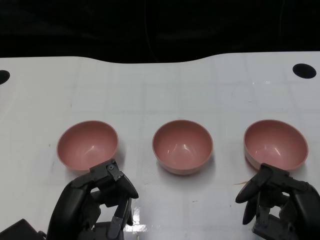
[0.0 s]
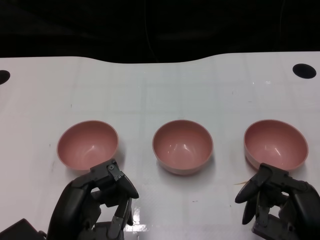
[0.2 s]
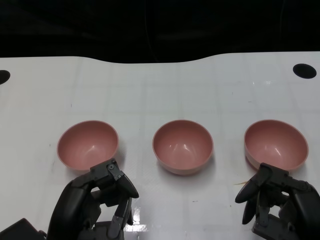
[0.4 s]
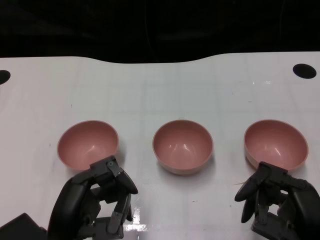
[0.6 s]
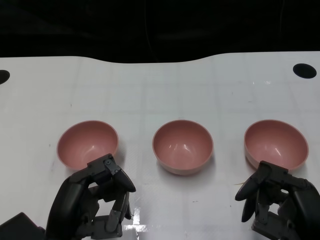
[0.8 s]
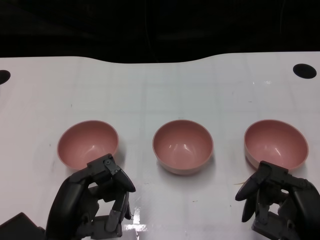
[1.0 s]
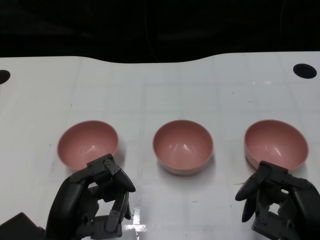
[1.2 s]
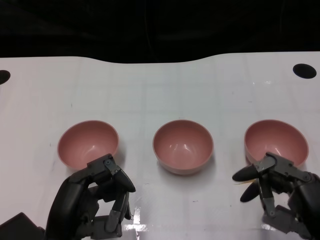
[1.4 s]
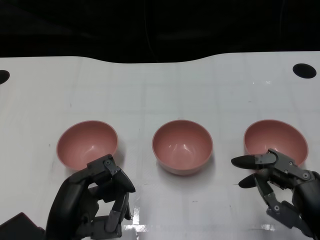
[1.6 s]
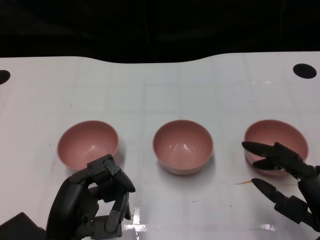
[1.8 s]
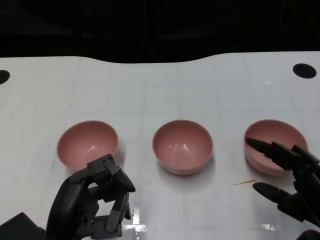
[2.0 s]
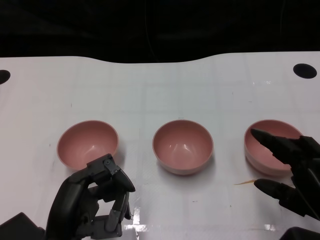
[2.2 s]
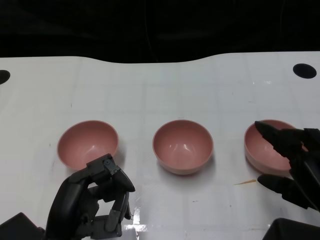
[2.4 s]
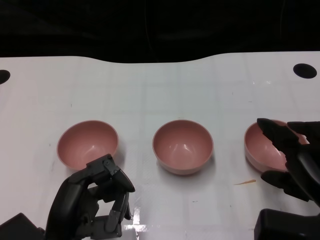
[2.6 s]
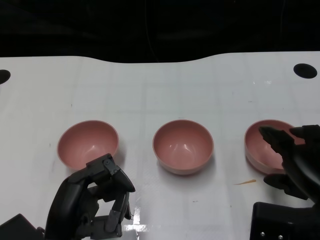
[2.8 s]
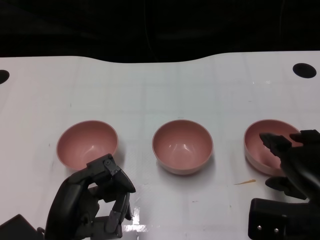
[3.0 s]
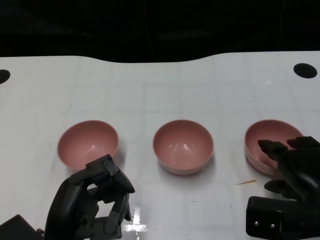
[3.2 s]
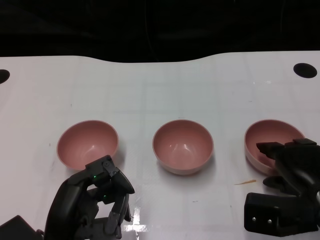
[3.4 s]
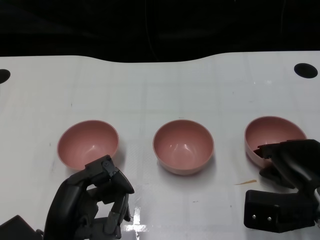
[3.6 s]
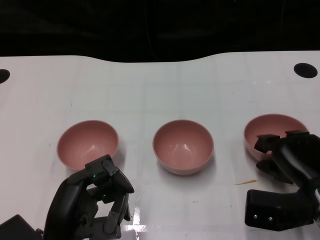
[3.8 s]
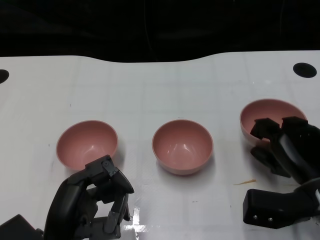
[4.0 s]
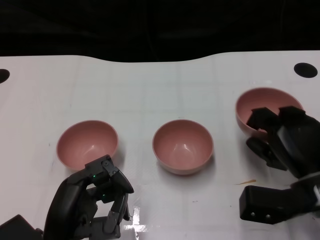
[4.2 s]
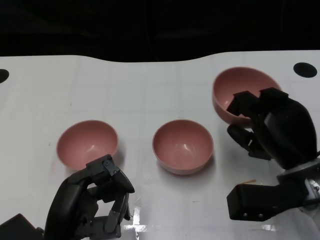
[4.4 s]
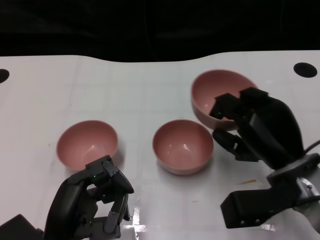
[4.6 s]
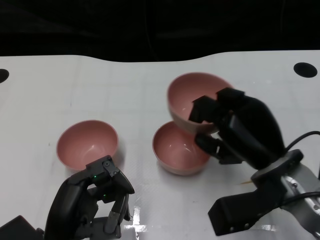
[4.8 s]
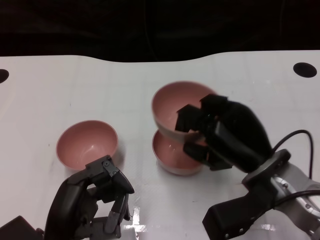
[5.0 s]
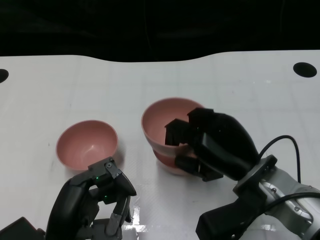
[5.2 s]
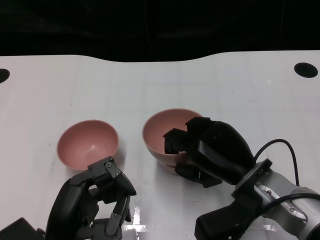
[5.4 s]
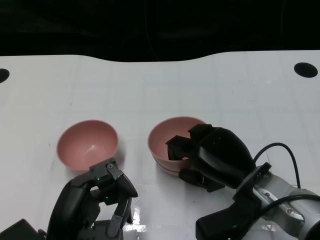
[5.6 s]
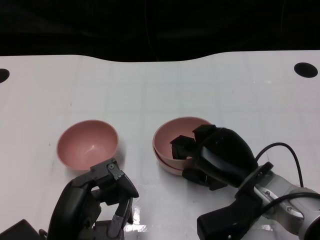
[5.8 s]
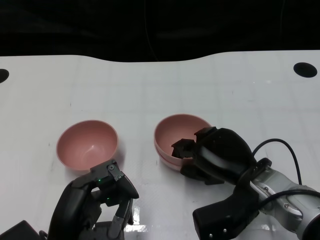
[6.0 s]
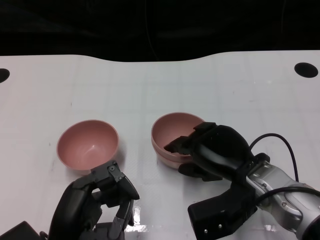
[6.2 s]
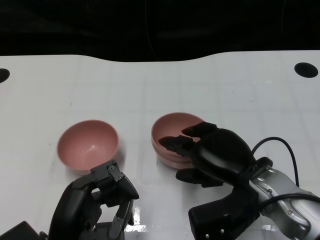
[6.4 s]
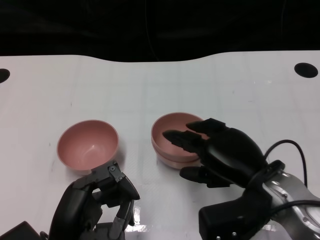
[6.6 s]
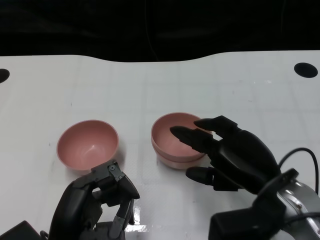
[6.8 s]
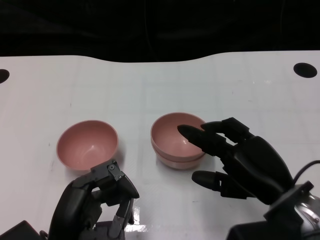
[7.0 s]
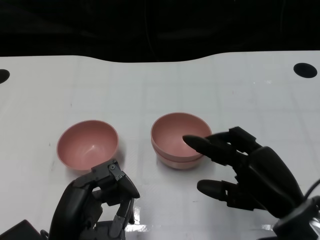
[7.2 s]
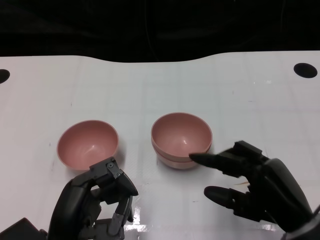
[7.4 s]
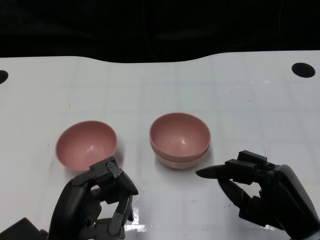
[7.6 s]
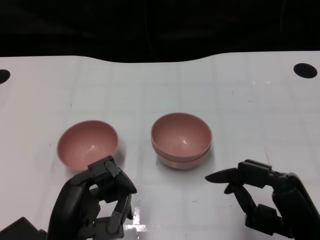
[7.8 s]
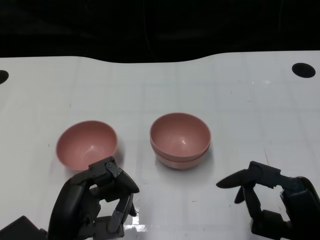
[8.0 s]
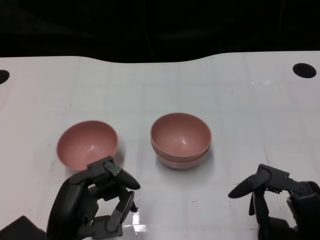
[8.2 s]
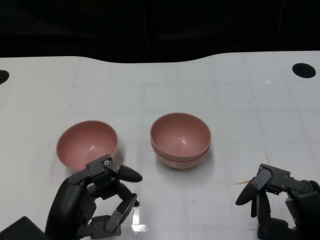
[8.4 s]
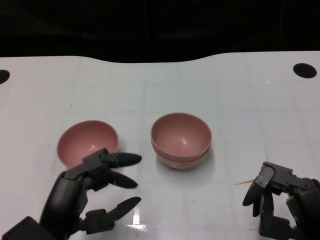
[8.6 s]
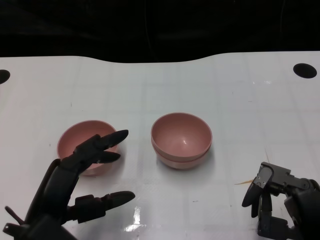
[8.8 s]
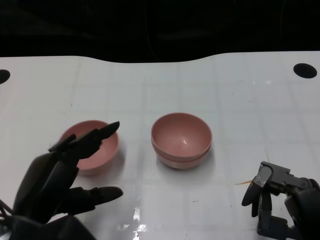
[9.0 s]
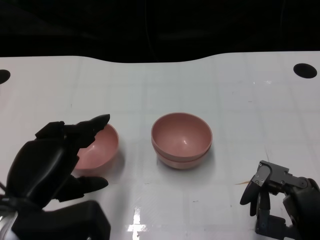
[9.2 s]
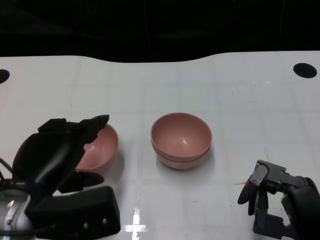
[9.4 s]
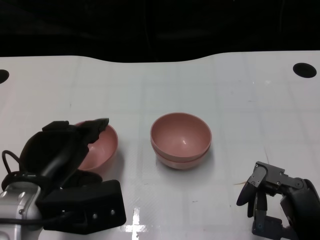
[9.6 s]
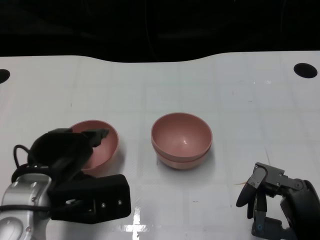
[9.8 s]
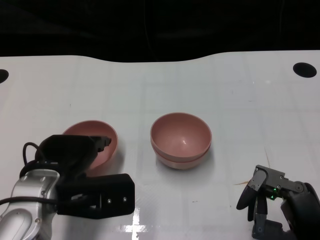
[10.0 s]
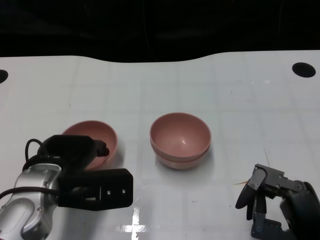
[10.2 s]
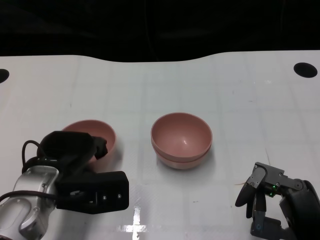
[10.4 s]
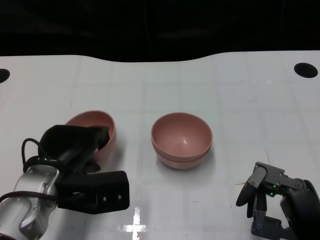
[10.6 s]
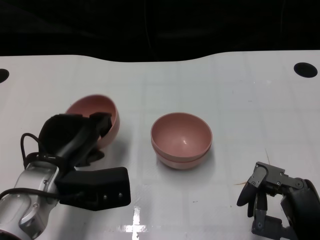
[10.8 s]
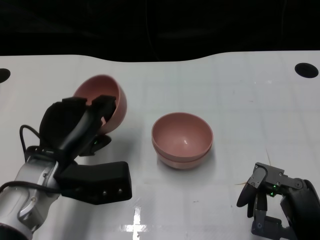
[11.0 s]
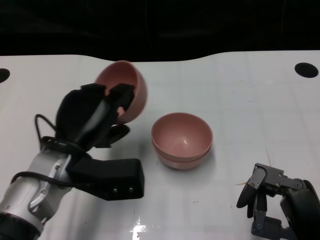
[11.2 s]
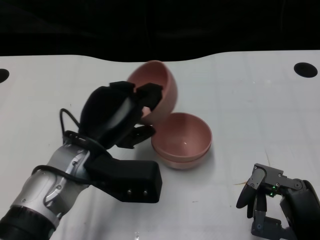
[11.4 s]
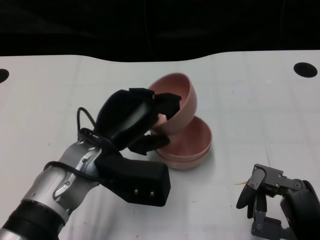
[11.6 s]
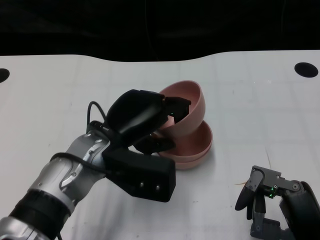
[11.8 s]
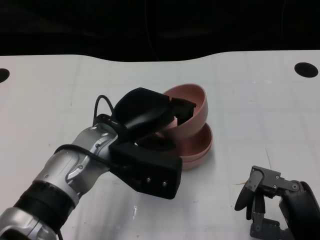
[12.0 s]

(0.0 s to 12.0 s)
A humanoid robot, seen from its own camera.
Task of the whole recording: Pick up the bowl on one side of the table and place it on top of the middle bowl, then pick up the bowl on the other side of the table and place it on top of the middle bowls.
Step, 1.4 s - 3.8 s: Grasp the bowl on the right with the right gripper.
Step, 4.0 s - 6.8 s: Place the bowl on the right onto the bowl in the middle with right gripper.
Step, 7.2 s - 10.6 s: Grasp the bowl on the left with the left gripper.
1.6 s - 3.0 s: The right hand travels forward by roughly 5 cm.
3.0 s - 4.4 s: The right hand changes place by about 5 cm.
4.4 s - 6.0 s: The right hand heads to the left, covering approximately 5 cm.
6.0 s - 7.6 s: The right hand goes some 10 cm backward and to the right.
7.6 s - 9.0 s: The left hand moves some 5 cm.
9.0 s - 10.4 s: The left hand travels forward by some 10 cm.
10.4 s - 12.0 s: The left hand moves to the right, some 10 cm.

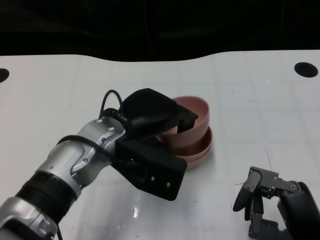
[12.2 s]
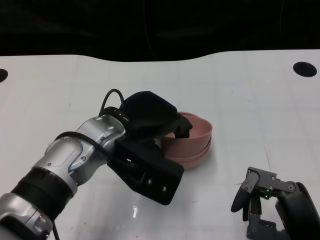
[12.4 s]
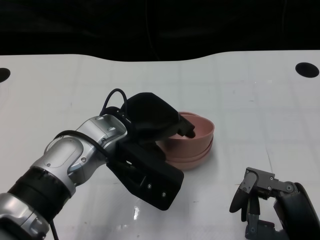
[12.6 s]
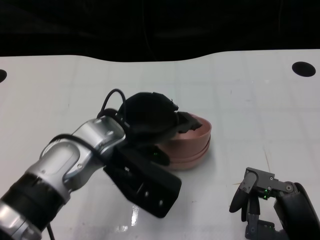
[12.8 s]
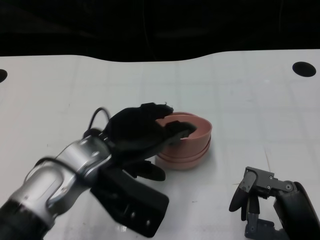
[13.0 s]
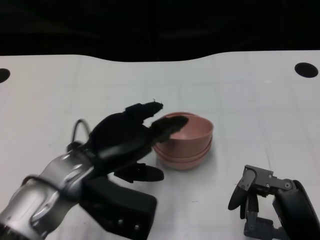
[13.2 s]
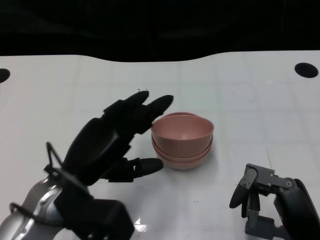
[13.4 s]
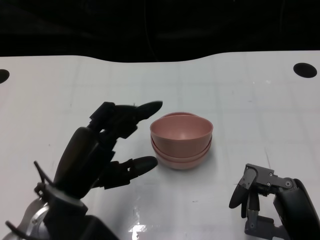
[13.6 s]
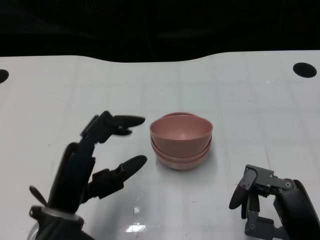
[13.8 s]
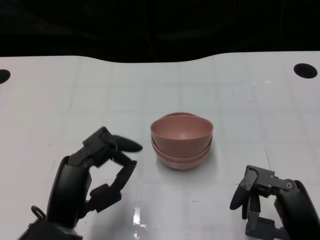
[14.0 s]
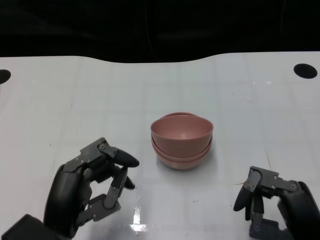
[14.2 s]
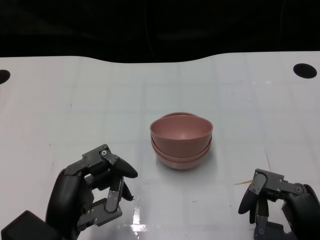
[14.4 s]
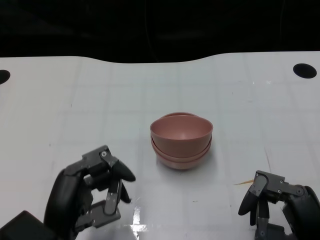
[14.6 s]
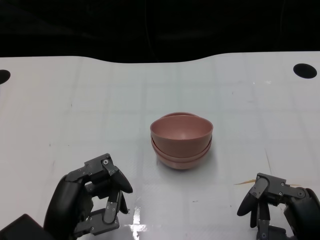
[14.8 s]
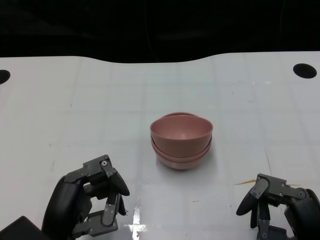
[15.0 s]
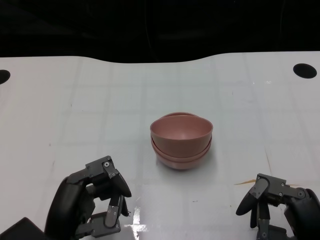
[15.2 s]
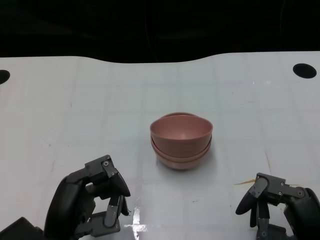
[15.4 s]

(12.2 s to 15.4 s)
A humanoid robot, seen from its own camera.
Task of the whole recording: Pick up the bowl on one side of the table and place it on top of the middle bowl, then pick up the bowl on the other side of the table and place it on top of the middle bowls.
12.2 s - 13.8 s: The left hand shifts approximately 15 cm backward, to the left and downward.

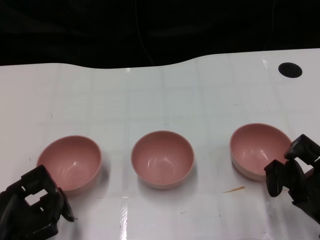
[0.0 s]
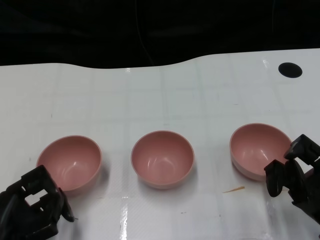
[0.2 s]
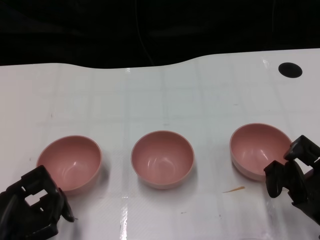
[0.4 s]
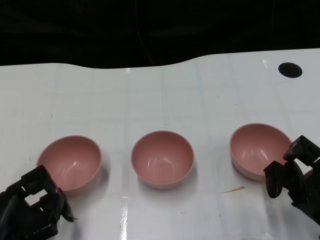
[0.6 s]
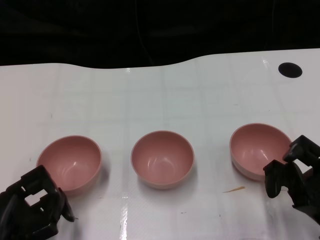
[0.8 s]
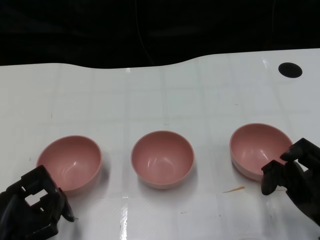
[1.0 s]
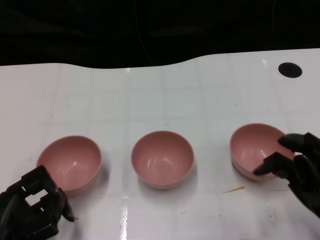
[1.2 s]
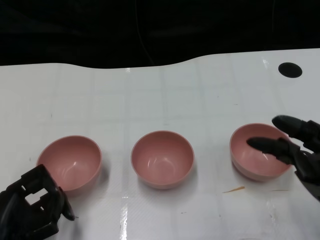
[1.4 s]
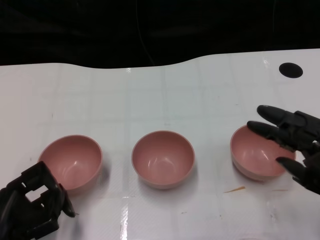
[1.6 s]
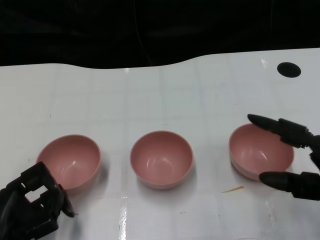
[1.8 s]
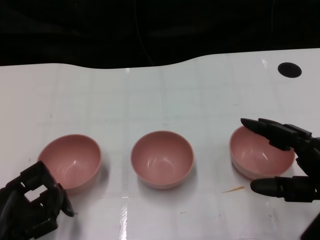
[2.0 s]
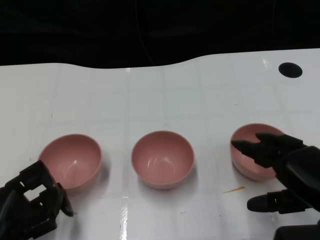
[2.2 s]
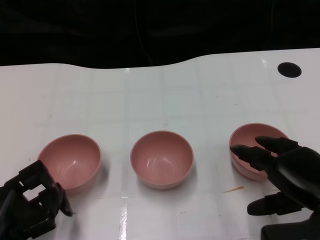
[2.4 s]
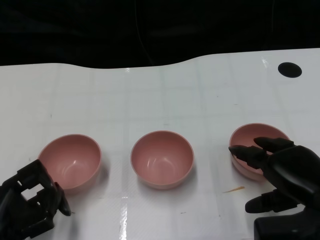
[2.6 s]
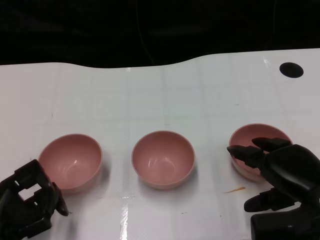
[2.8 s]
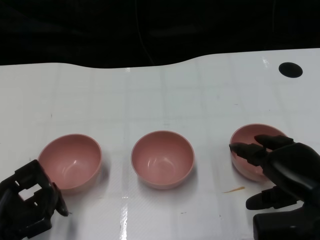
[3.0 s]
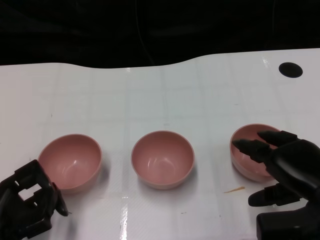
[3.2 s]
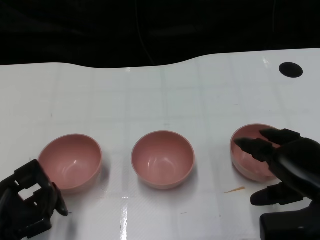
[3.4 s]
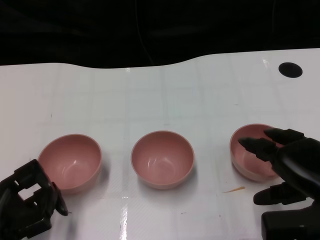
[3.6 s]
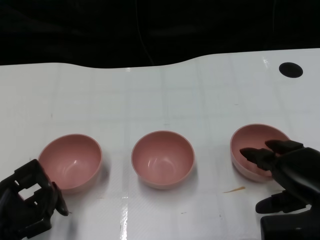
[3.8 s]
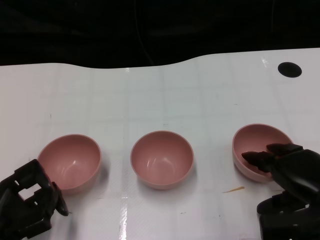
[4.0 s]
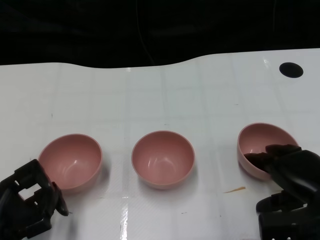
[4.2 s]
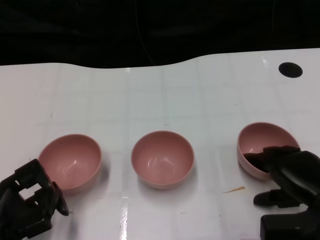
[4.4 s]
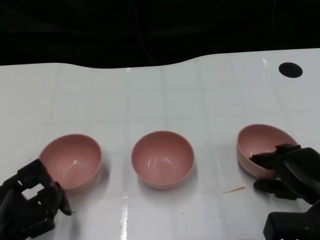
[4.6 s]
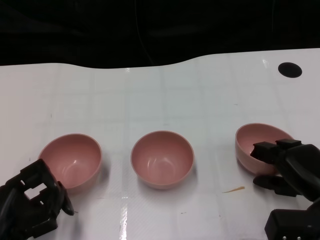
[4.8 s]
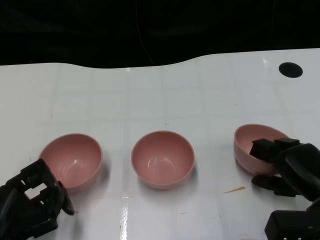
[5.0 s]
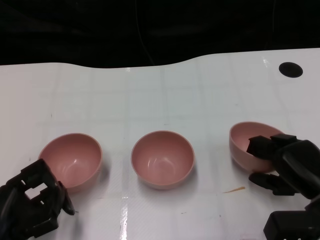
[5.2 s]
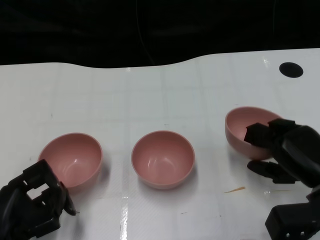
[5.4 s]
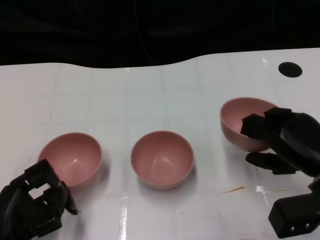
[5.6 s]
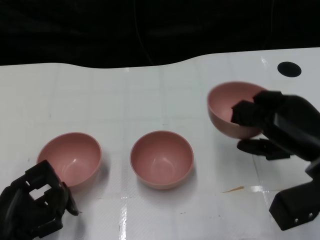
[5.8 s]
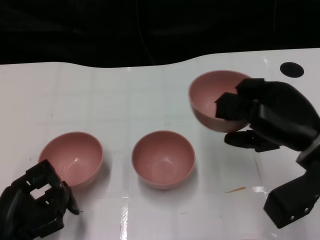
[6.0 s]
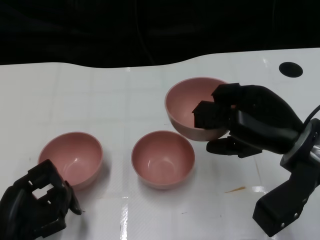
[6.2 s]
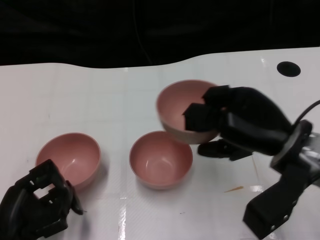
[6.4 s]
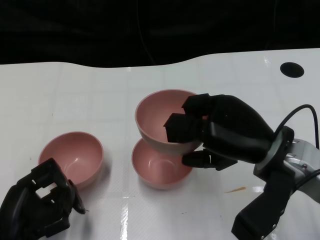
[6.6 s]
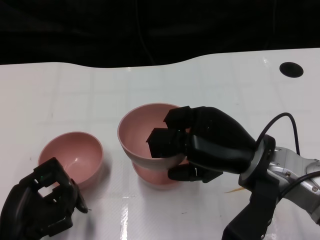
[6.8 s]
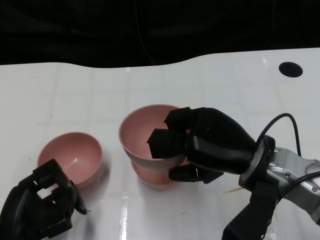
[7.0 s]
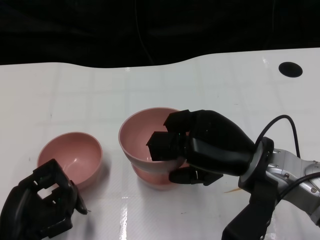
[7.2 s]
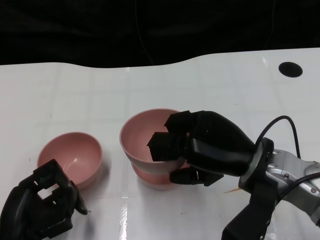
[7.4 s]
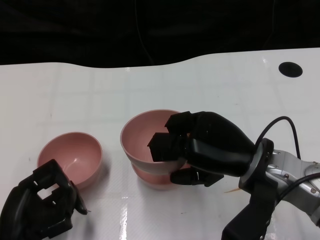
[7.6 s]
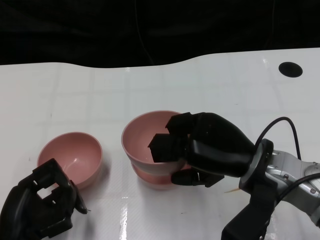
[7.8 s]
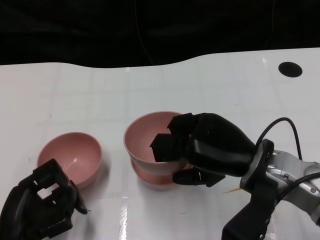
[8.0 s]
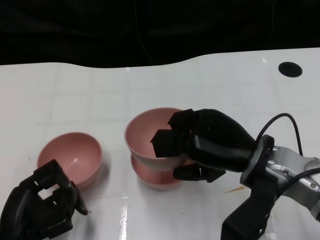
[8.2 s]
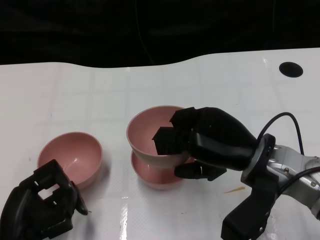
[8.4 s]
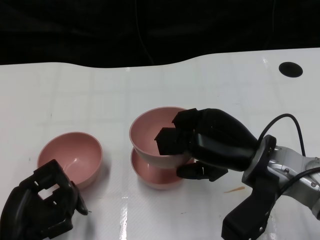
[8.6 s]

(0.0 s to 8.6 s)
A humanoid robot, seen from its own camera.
Task of the whole recording: Pick up the bowl on one side of the table and place it on top of the middle bowl, then pick up the bowl on the other side of the table and place it on top of the middle bowls.
Step, 1.0 s - 5.2 s: Grasp the bowl on the right with the right gripper.
2.8 s - 4.4 s: The hands make only small movements.
4.4 s - 5.8 s: The right hand is displaced upward by approximately 5 cm.
5.8 s - 7.2 s: The right hand moves to the left, about 10 cm.
7.2 s - 8.6 s: The hands move only a little.
